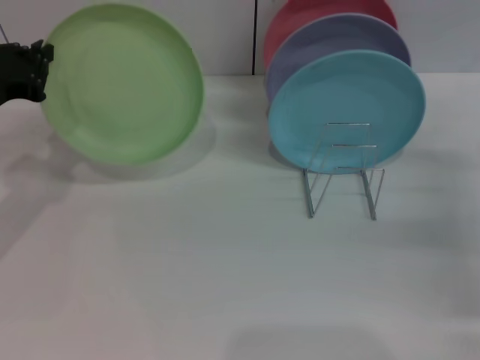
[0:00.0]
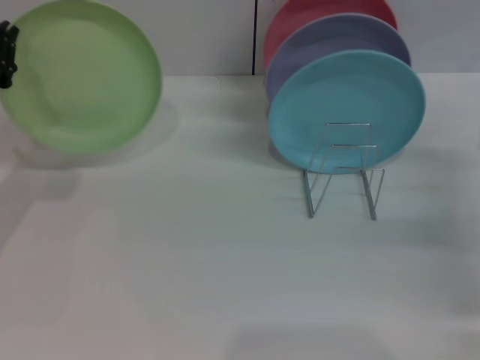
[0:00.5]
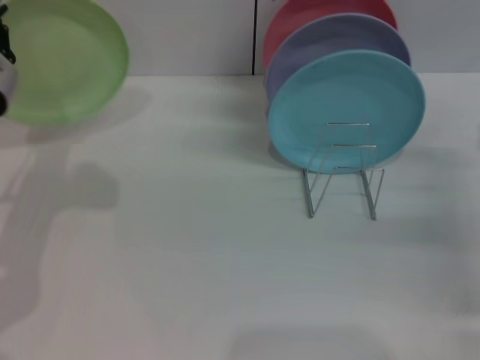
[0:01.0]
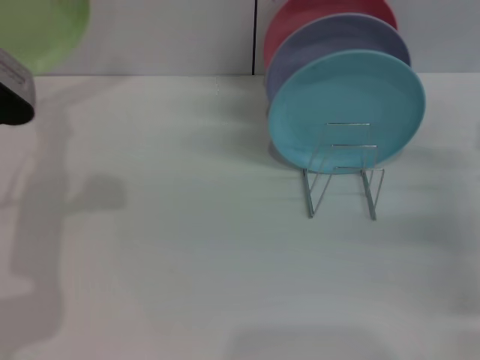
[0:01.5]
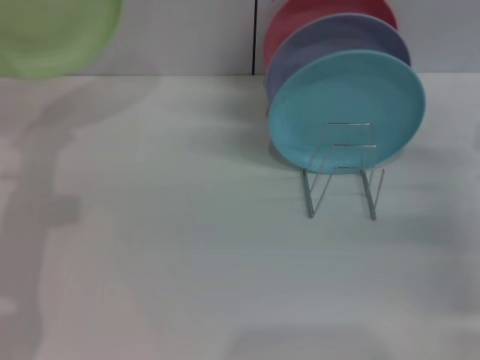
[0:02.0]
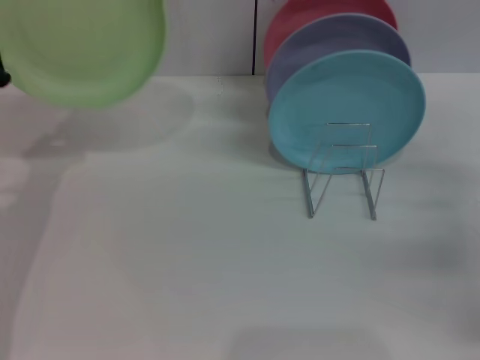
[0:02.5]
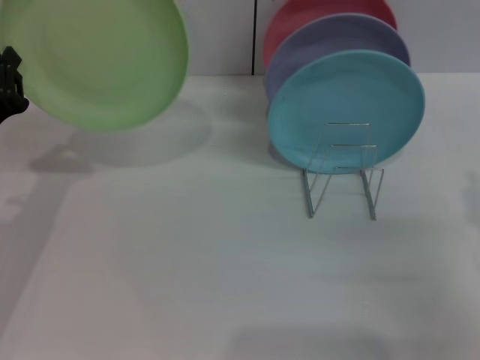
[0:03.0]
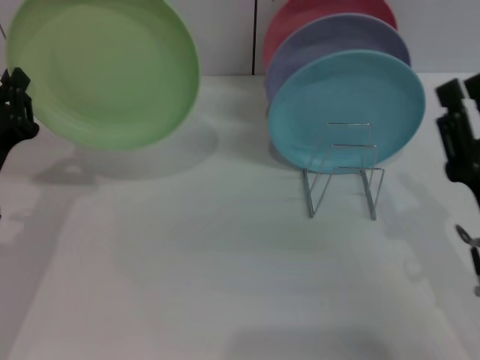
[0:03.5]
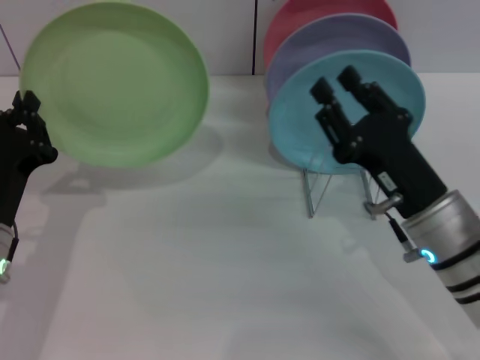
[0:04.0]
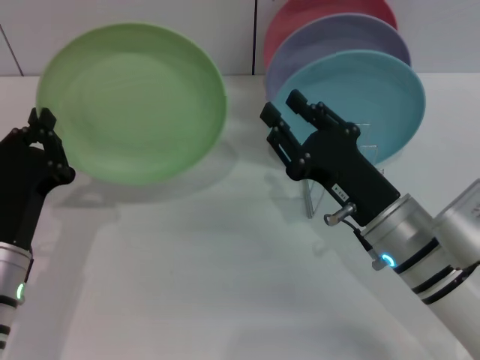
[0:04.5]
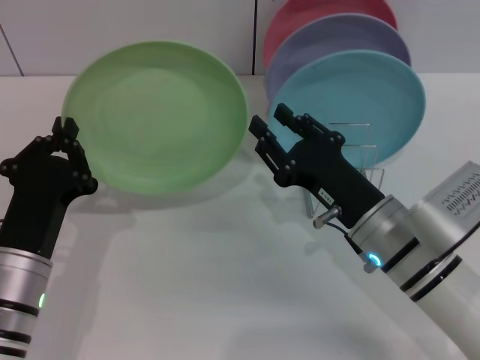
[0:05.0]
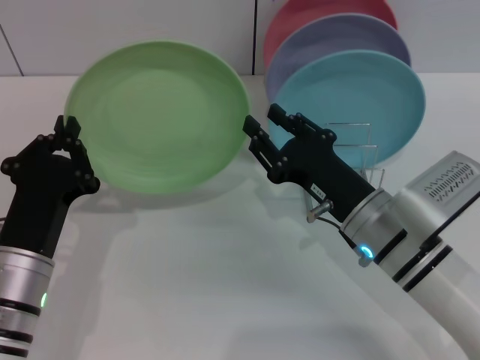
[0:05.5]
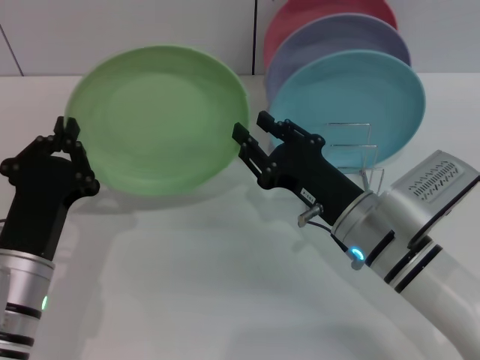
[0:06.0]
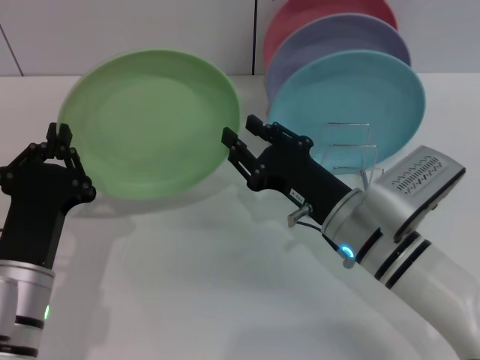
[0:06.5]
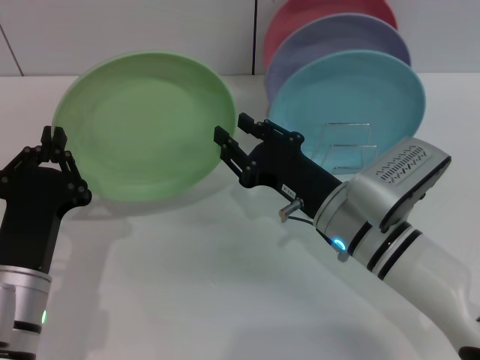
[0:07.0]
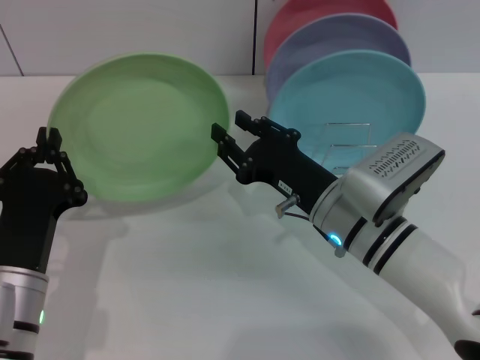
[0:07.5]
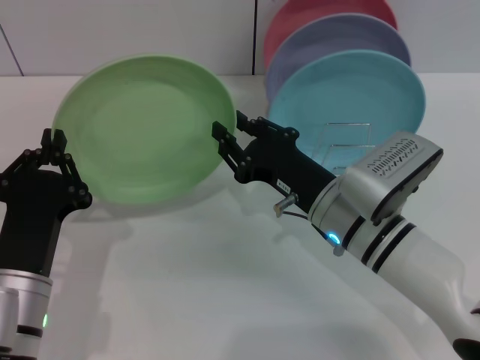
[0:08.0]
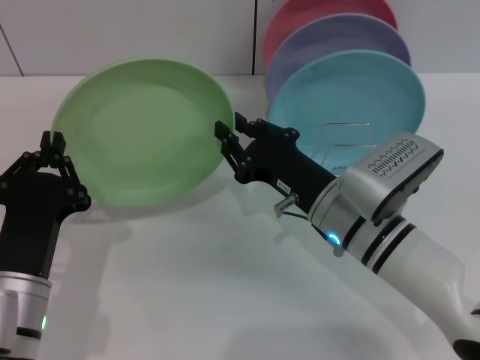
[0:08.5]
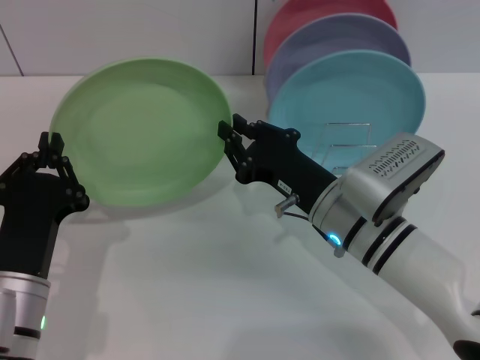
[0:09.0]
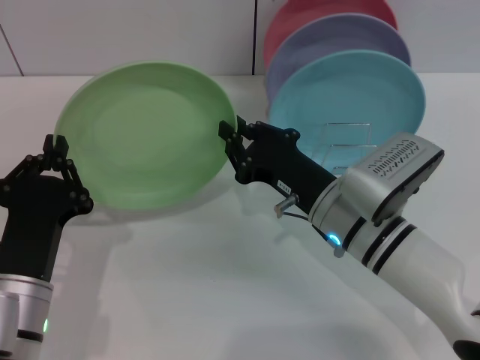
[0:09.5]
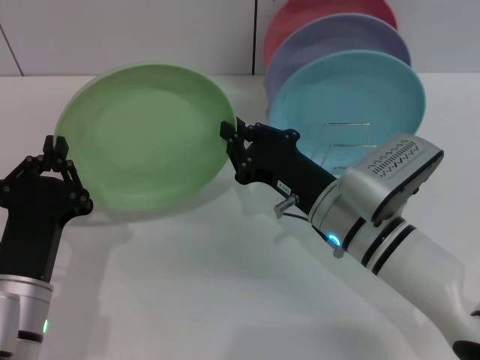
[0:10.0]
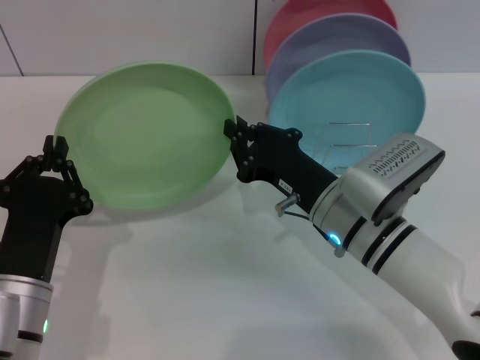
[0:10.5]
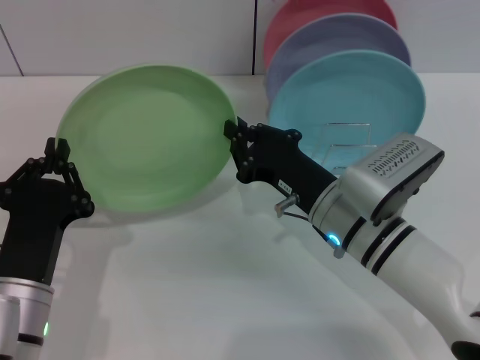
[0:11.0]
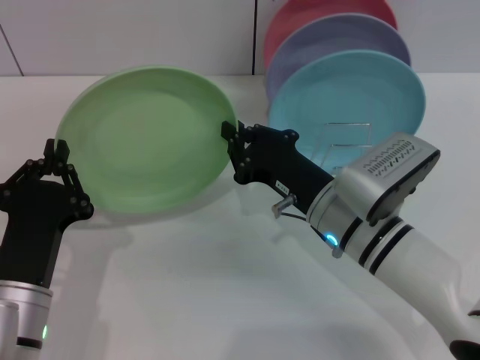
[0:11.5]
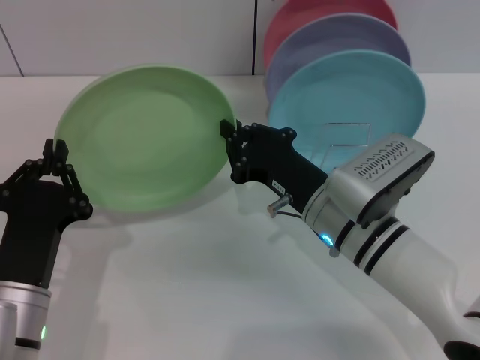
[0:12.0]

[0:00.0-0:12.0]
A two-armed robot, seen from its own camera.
Task of the whole recording: Grip the plate with one hand, pass it to the other, then set it on the shelf.
0:02.0 to 0:04.0: The left gripper heads downward and backward, covering approximately 10 cm. The right gripper shifts some 15 cm to the left.
0:04.0 to 0:06.0: The right gripper changes place by approximately 5 cm.
0:06.0 to 0:08.0: The grippers stay close to where they were, moving slightly.
0:08.0 to 0:10.0: The right gripper closes.
0:10.0 to 0:12.0: Neither gripper changes place.

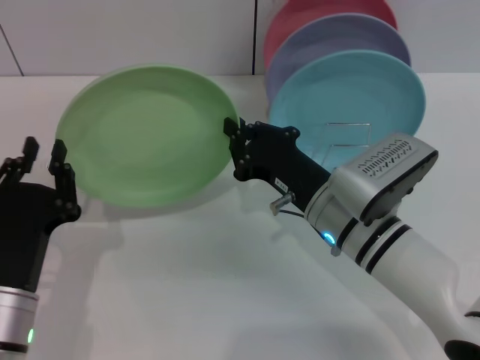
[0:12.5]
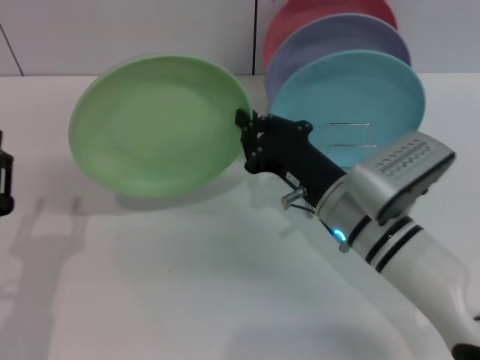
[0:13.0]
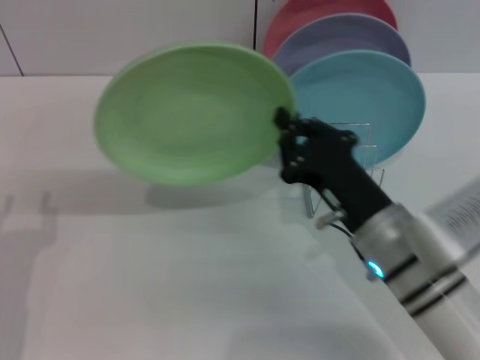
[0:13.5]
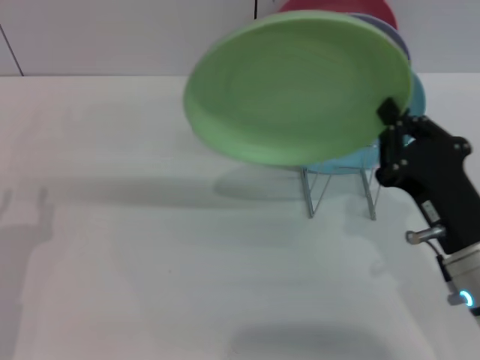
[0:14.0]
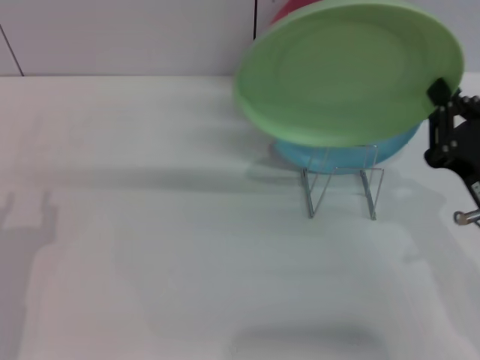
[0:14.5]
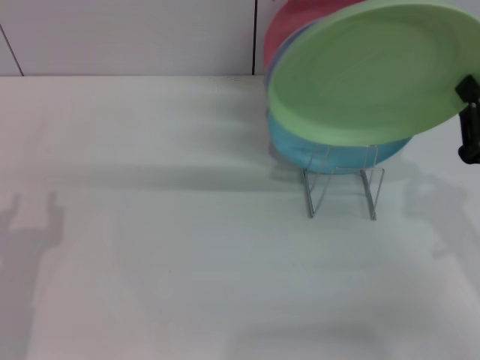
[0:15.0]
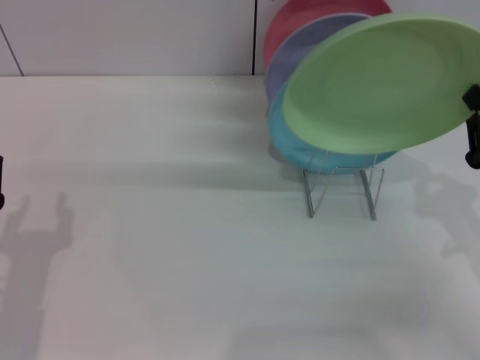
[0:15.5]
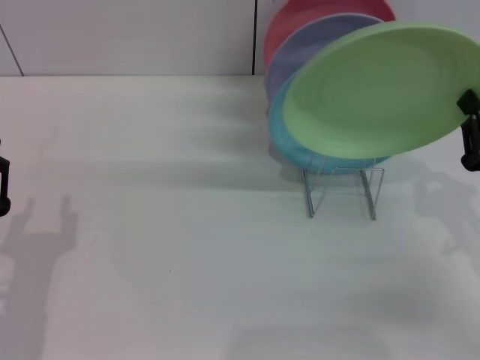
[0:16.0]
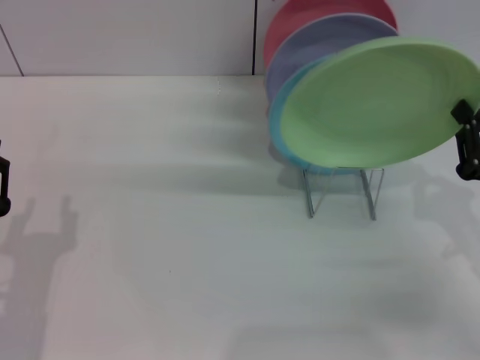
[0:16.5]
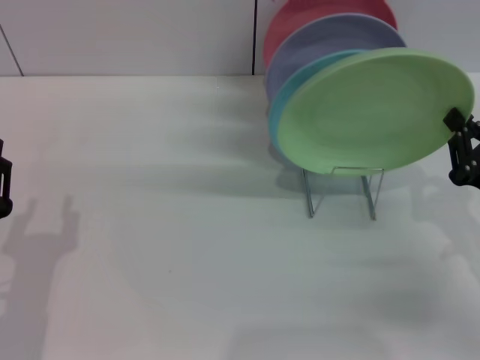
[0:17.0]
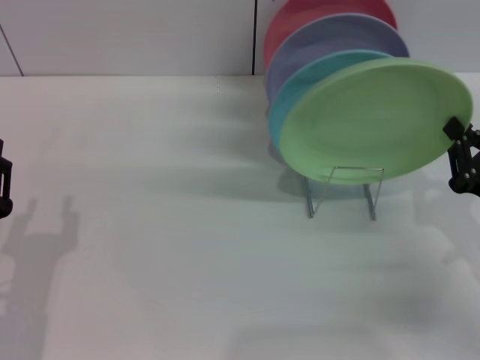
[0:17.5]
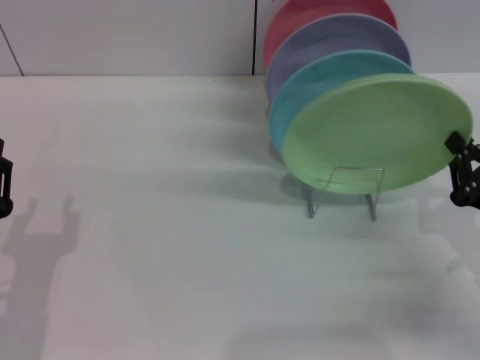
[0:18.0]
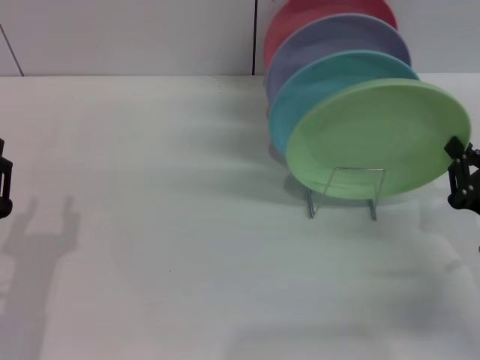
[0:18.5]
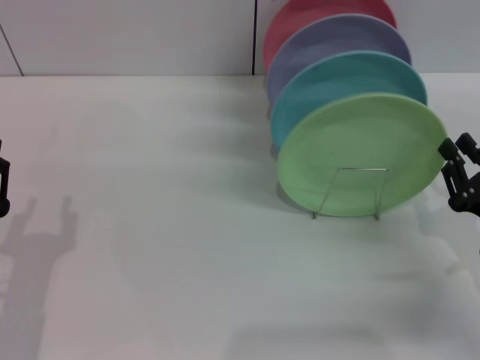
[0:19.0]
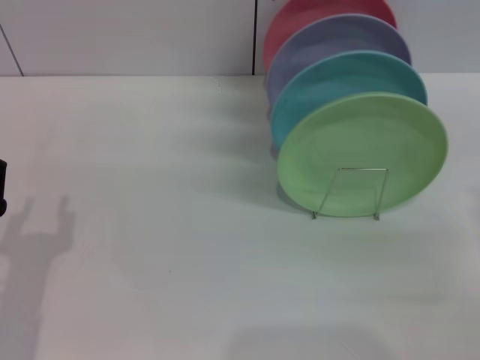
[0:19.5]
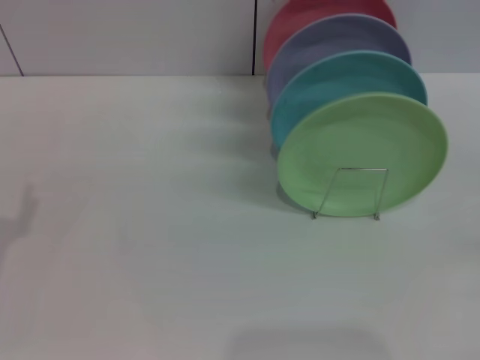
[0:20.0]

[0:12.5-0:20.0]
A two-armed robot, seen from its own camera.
Task of the whole recording: Grip the plate with one hand, pass it to the other, then set it on the shelf.
Step, 0:13.0 to 0:19.0: Place the plate on the shelf with the right gripper.
0:12.5 to 0:14.5: The right gripper travels to the right and backward by some 15 cm; the left gripper shifts approximately 5 cm to the left, and opens up.
0:14.5 to 0:16.5: The right gripper shifts about 5 cm to the right.
0:16.5 to 0:18.0: There are only small adjustments of the grippers.
0:18.0 to 0:20.0: The left gripper goes approximately 5 cm to the left. Meanwhile the right gripper shifts roughly 15 cm to the right and backward, and opens up.
